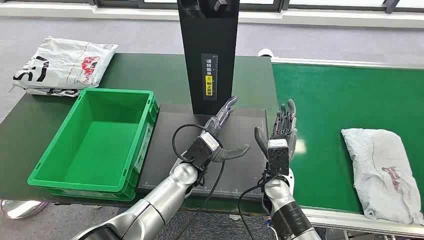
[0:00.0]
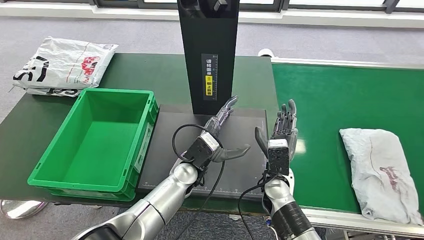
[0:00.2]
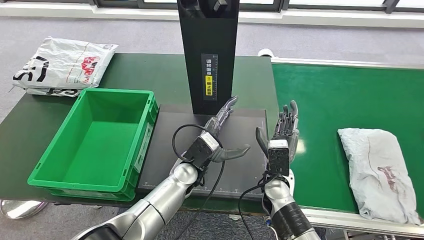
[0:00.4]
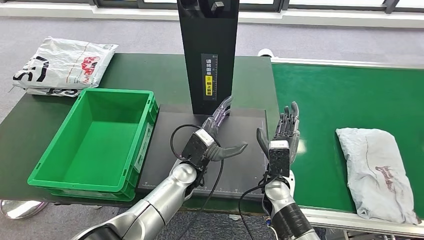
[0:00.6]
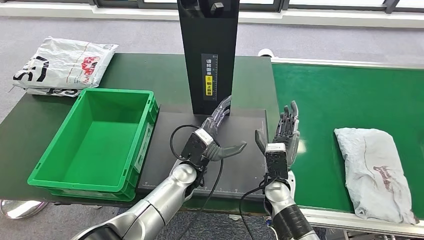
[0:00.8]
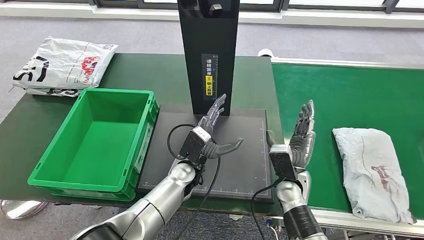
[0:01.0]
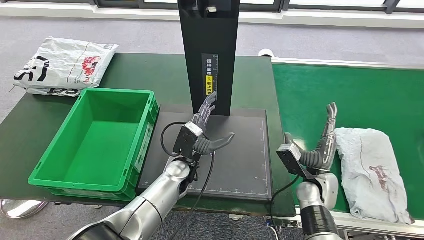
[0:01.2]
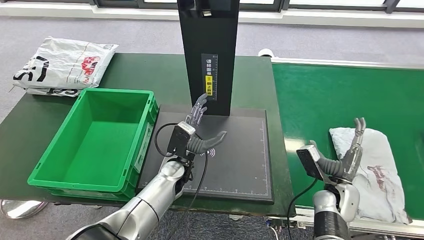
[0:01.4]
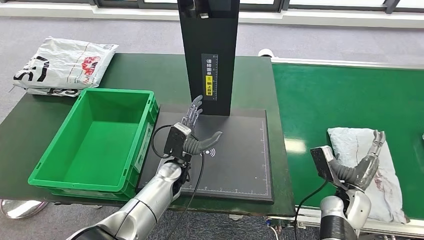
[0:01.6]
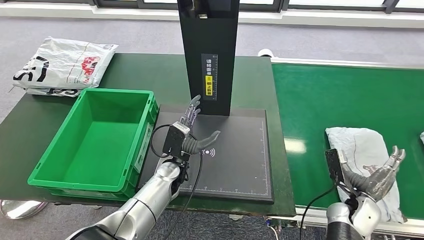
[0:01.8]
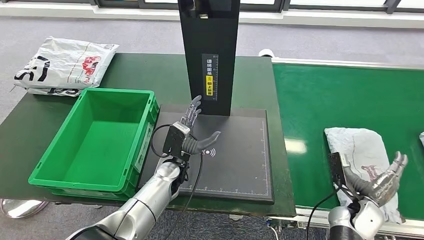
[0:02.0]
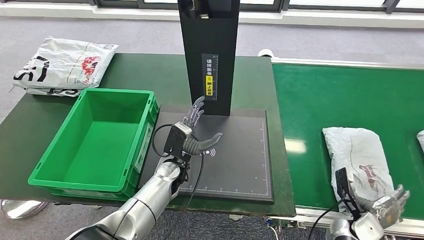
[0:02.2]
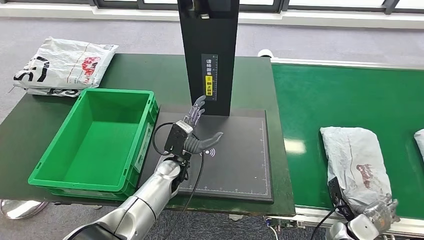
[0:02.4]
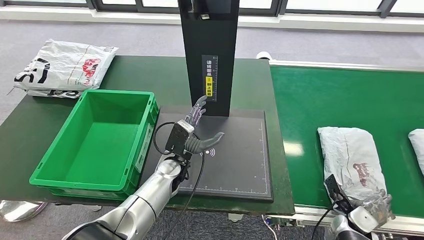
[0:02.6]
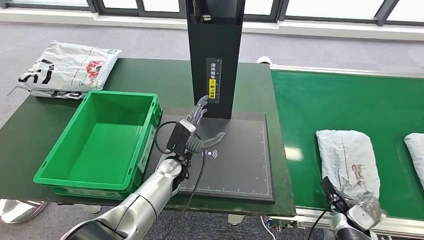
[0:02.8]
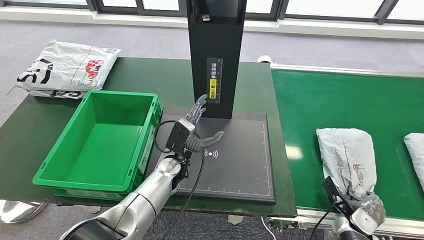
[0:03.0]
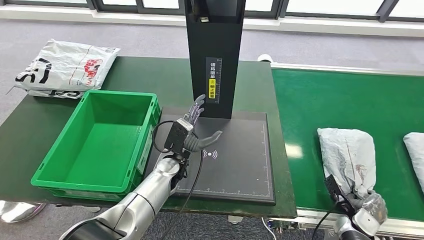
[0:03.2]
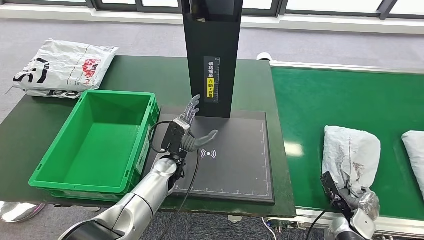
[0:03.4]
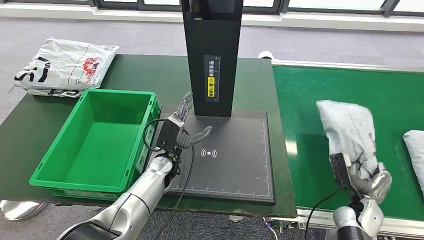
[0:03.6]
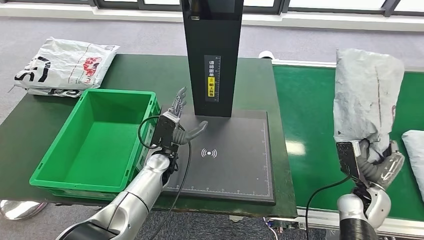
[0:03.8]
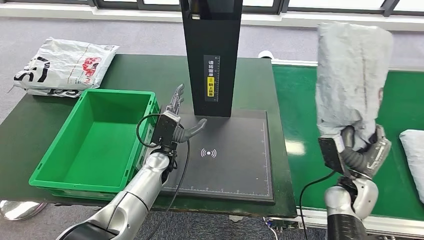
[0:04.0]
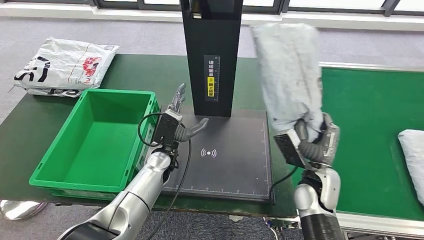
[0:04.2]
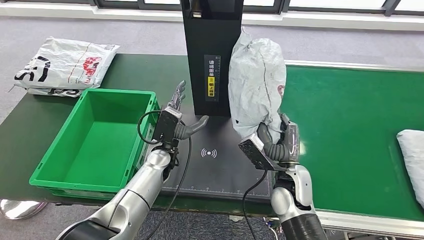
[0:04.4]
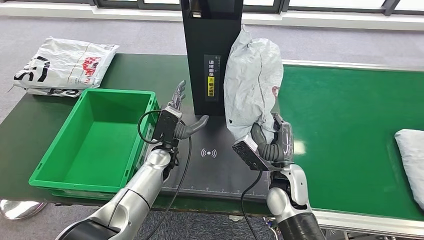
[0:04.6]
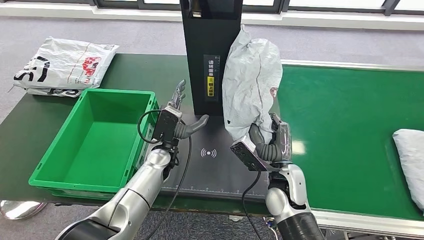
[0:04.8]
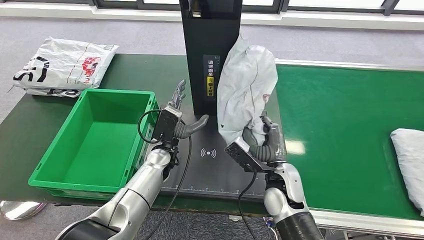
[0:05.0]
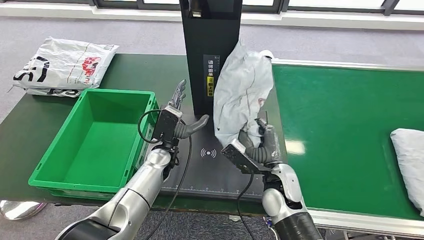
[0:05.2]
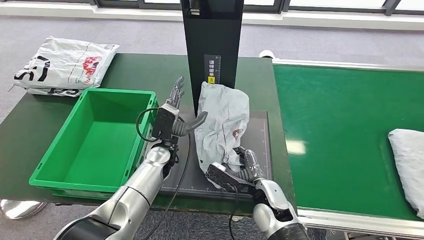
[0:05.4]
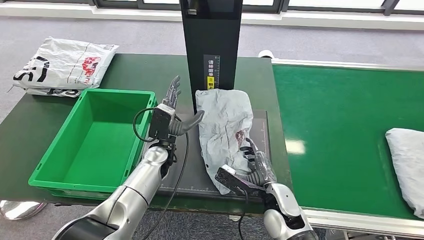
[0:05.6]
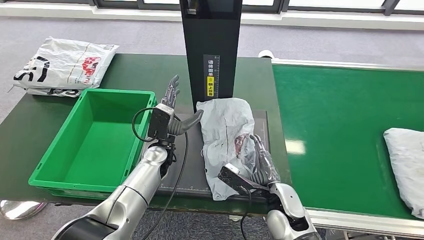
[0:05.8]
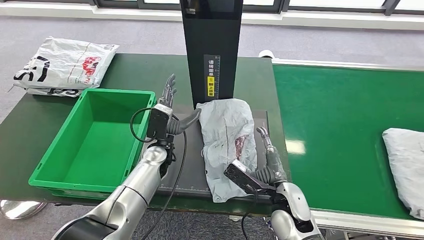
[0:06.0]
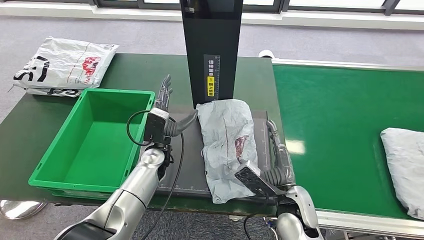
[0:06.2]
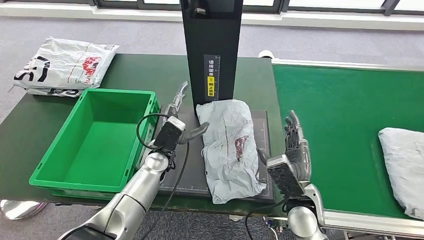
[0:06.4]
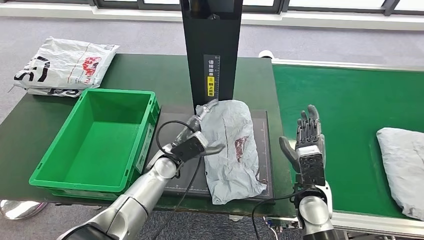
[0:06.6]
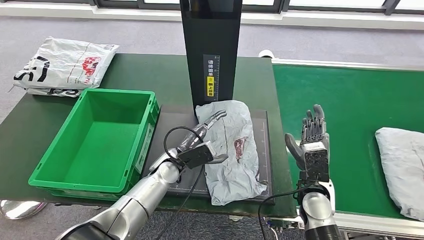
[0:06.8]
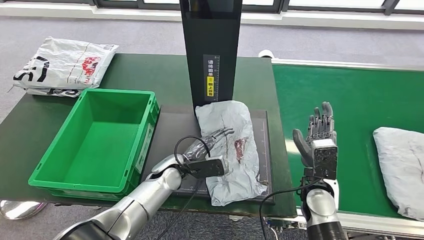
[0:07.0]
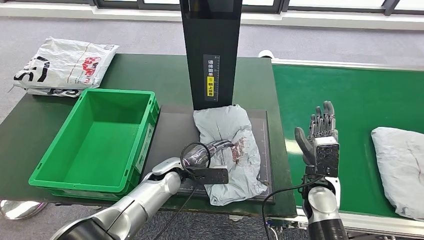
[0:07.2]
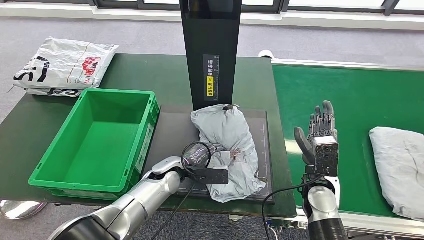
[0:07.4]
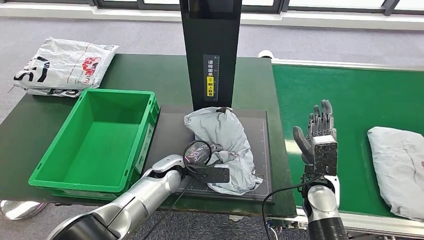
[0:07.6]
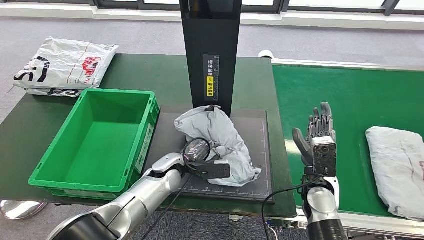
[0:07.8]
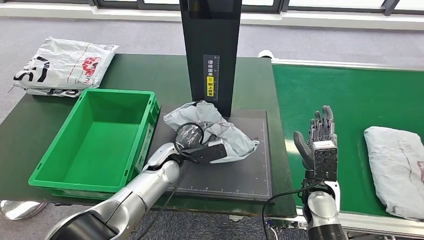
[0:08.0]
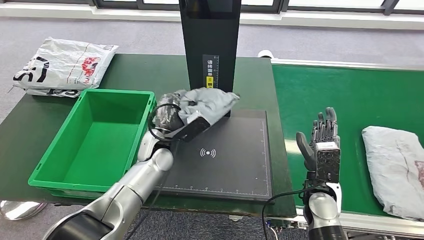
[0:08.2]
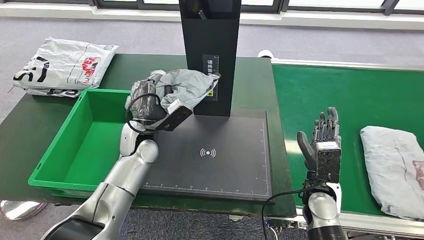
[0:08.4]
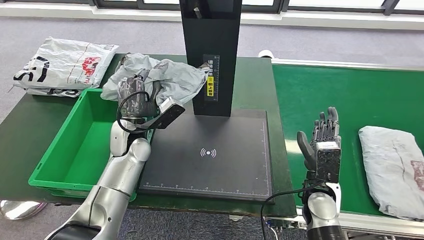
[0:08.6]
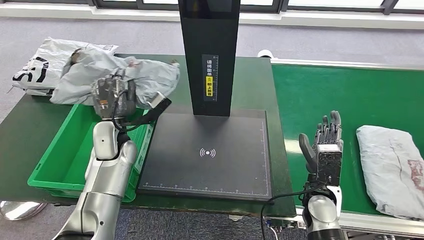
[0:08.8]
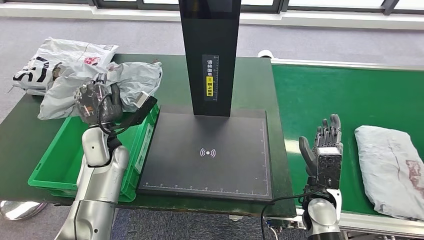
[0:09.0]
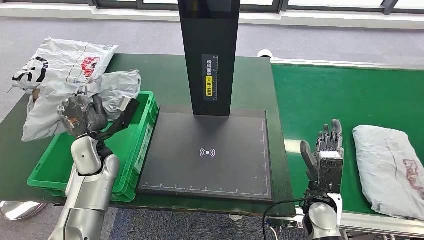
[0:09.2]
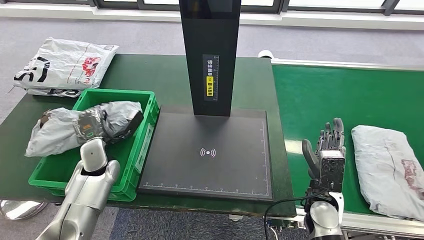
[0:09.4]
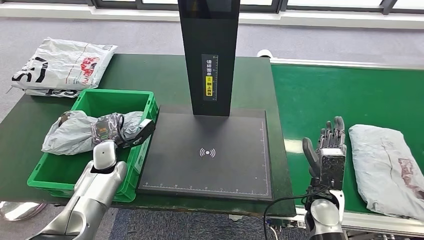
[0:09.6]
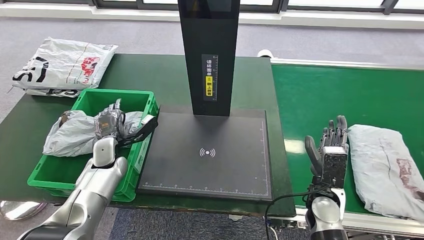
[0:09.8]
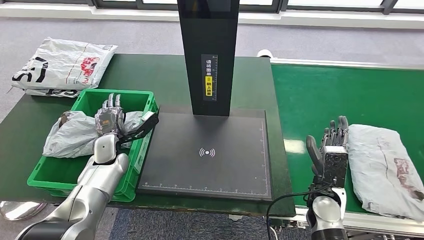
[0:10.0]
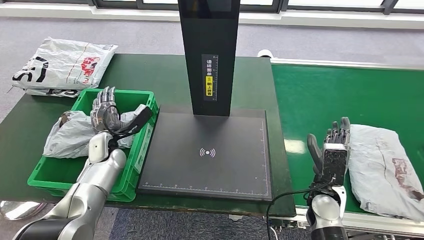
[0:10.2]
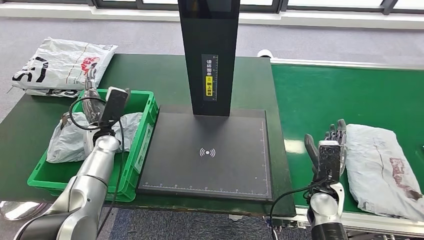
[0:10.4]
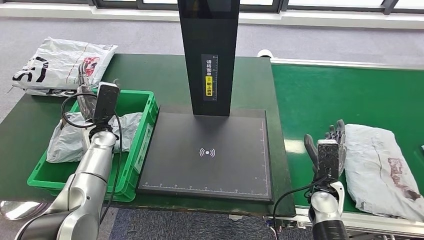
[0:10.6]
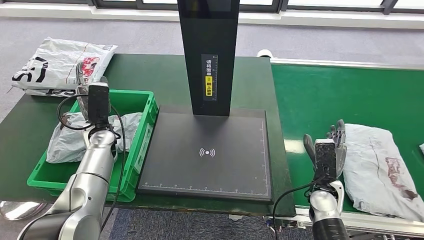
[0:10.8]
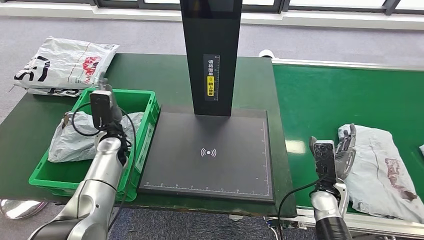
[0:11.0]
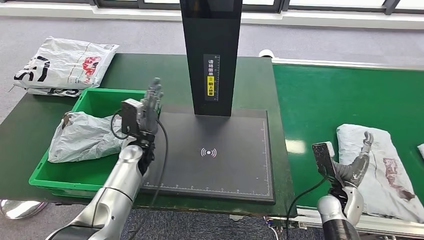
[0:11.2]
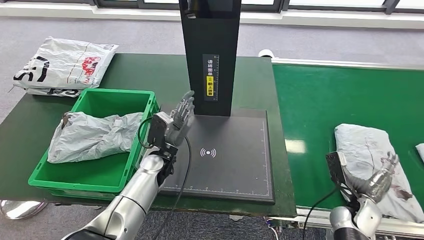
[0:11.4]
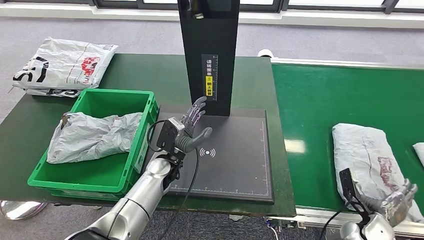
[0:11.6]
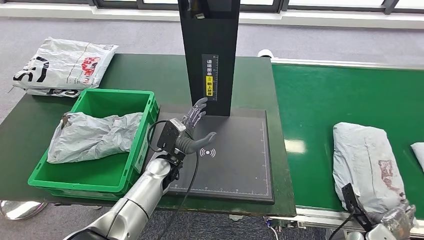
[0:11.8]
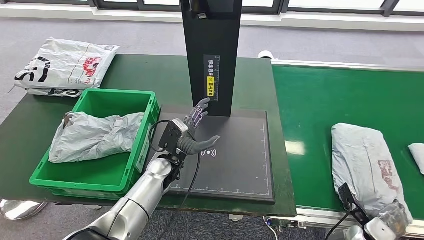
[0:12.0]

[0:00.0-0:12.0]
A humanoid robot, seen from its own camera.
Step, 0:00.0 to 0:03.6: Take the parcel off the conveyor belt.
Step, 0:03.8 to 0:06.6: Place the parcel onto the inbound machine.
Step, 0:06.8 to 0:08.0: Pick up the parcel from the inbound machine.
Step, 0:08.2 to 0:11.0: Put the parcel inside the courier box.

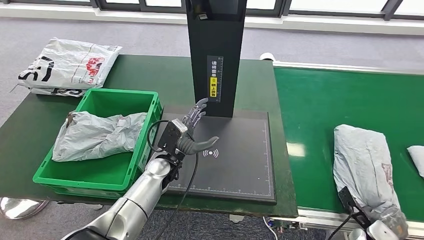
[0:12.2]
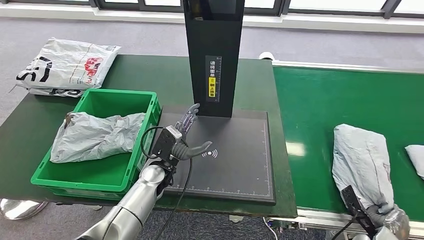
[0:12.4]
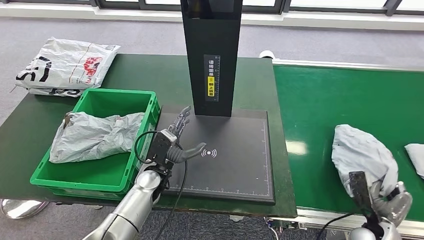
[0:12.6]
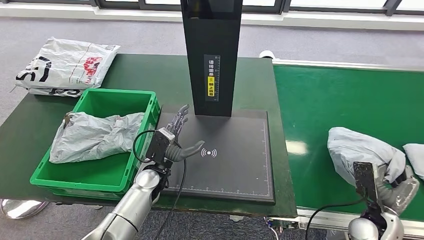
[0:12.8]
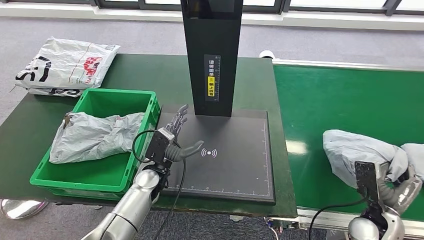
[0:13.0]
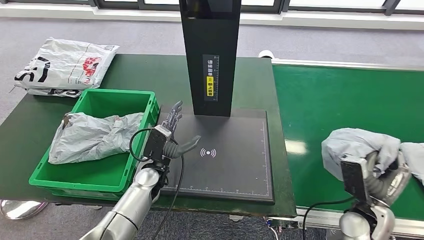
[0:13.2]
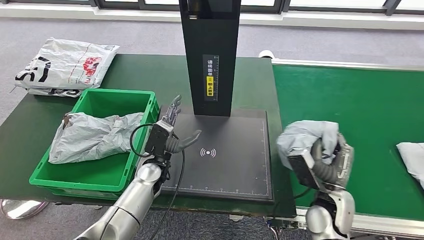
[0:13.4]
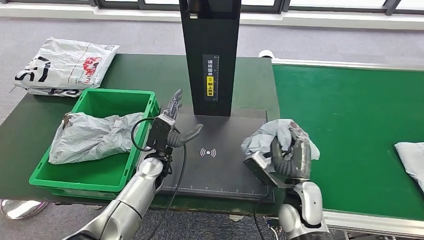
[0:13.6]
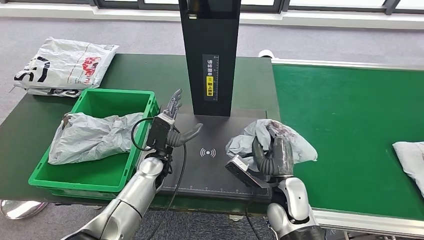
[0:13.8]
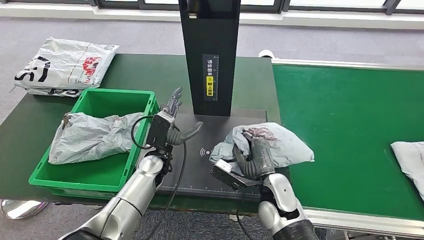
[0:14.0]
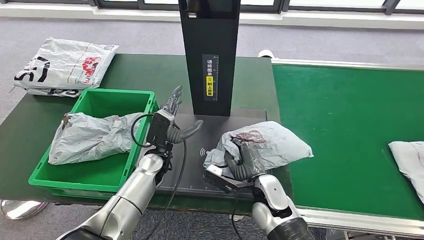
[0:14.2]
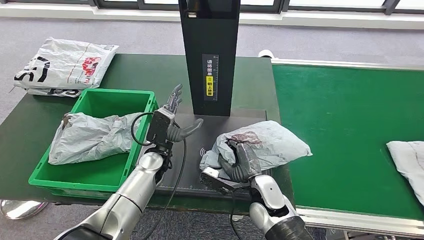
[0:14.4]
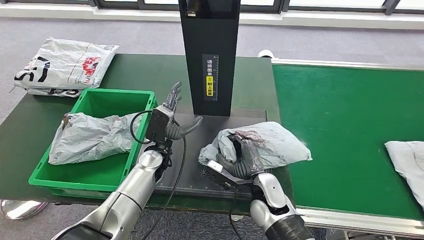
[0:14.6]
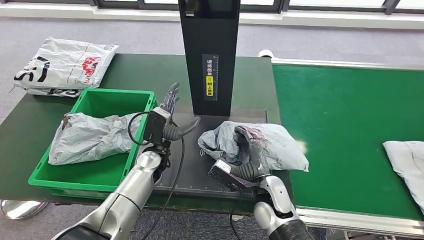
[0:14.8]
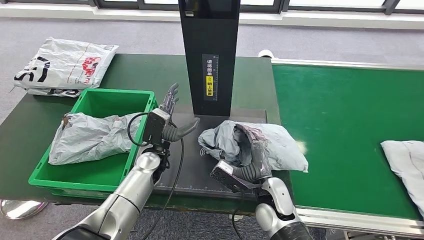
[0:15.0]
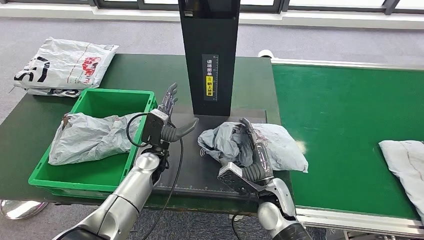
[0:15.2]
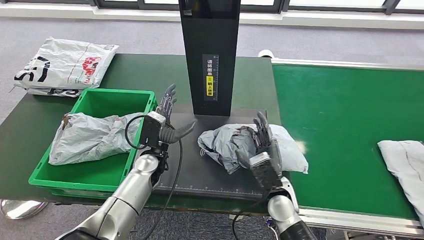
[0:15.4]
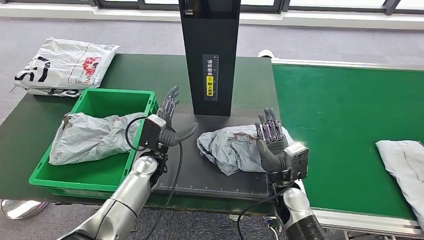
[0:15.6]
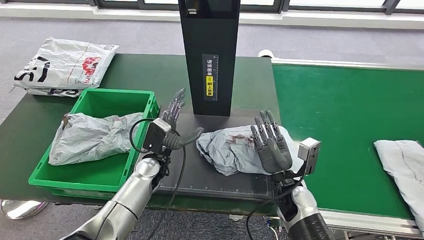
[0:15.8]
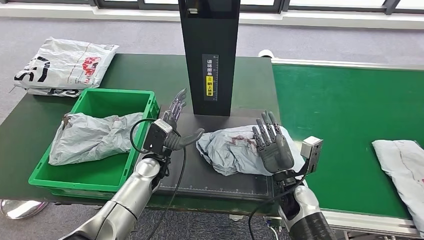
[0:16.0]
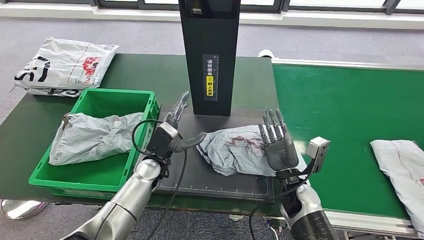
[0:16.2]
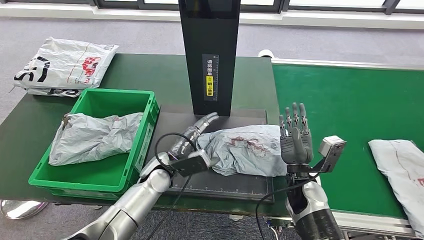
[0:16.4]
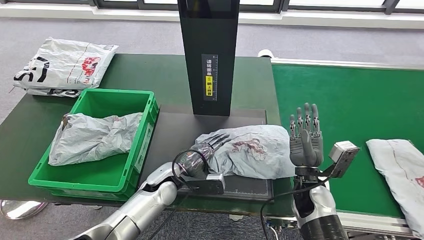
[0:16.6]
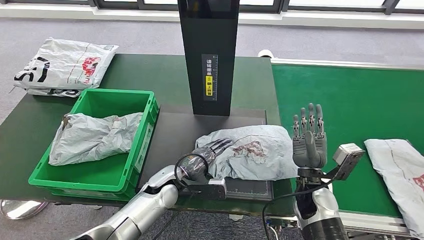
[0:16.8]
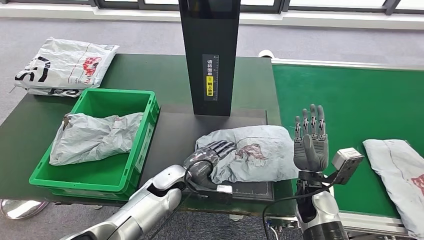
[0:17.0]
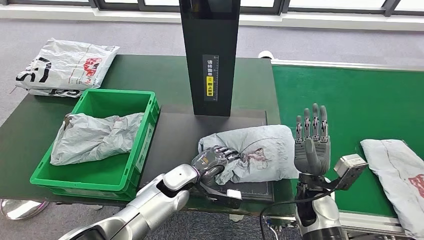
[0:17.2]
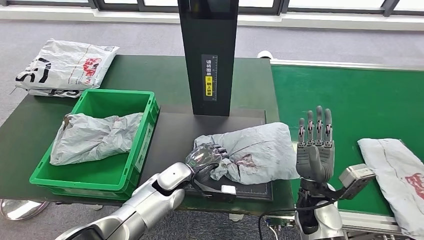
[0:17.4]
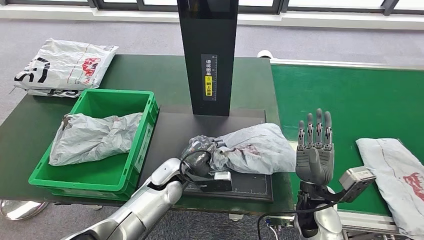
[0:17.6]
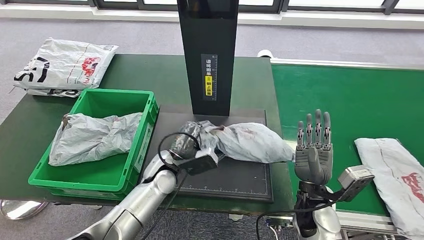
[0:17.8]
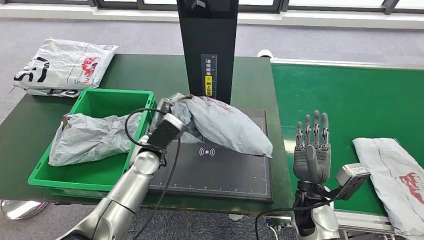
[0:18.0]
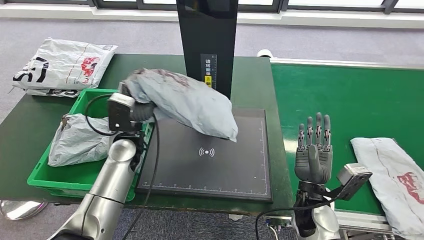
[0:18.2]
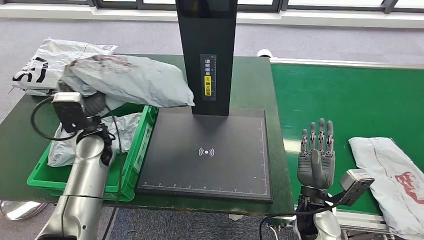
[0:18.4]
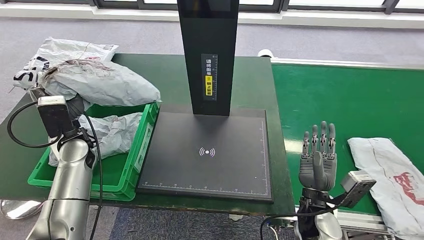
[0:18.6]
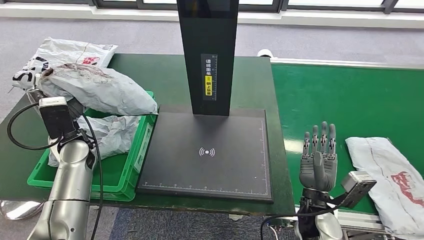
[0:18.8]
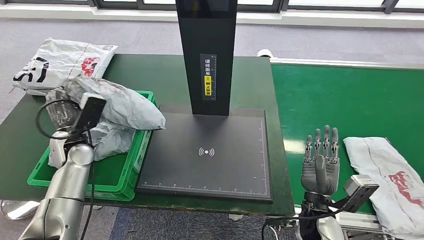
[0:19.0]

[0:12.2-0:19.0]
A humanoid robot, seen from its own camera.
Step, 0:13.0 to 0:15.8: Place the parcel onto the inbound machine.
Step, 0:16.0 to 0:17.8: Pick up the parcel from the inbound machine.
0:13.6 to 0:15.0: The right hand travels to the left by some 5 cm.
0:15.0 to 0:16.2: The right hand shifts roughly 5 cm to the right.
